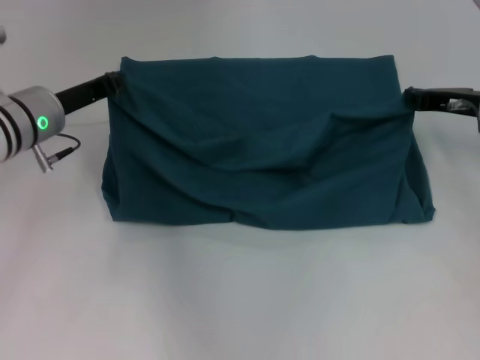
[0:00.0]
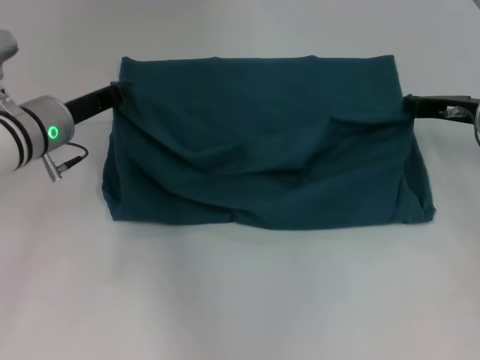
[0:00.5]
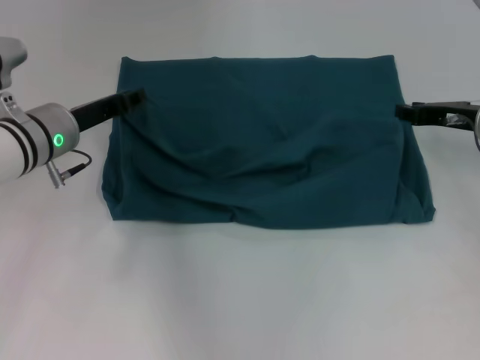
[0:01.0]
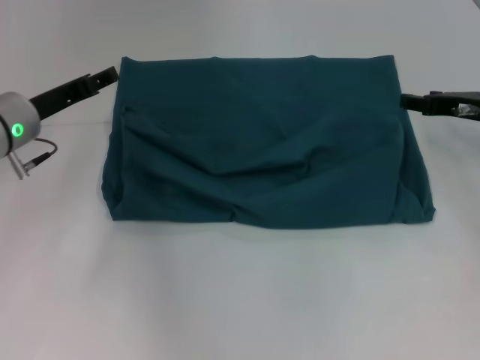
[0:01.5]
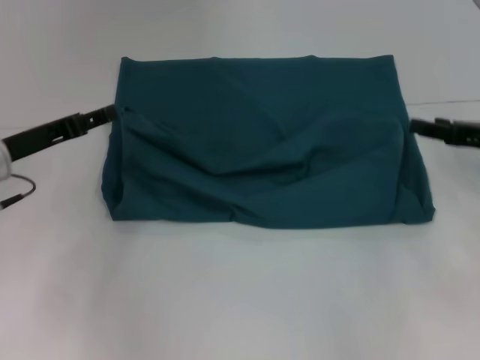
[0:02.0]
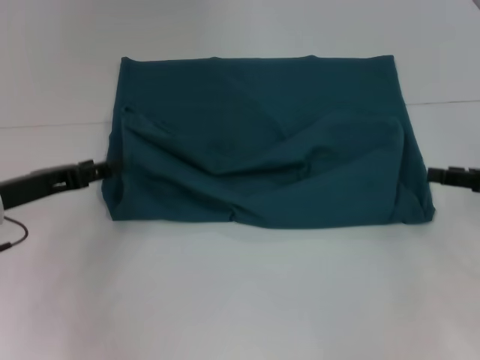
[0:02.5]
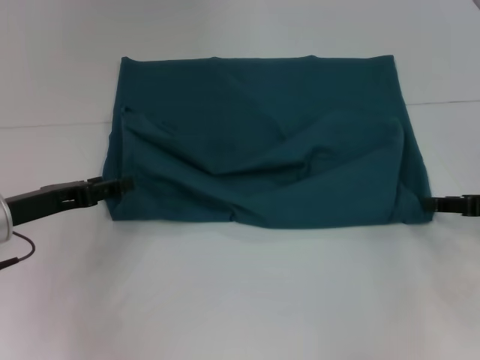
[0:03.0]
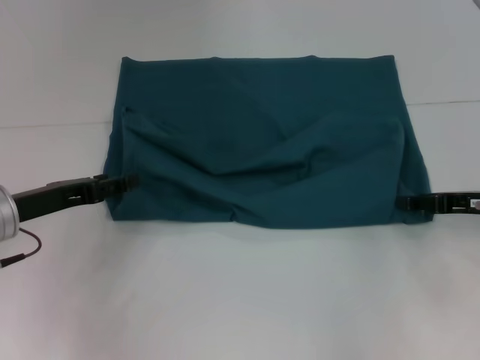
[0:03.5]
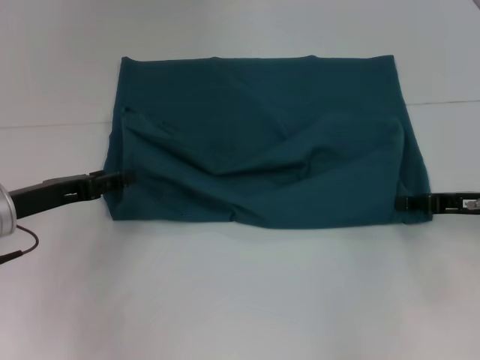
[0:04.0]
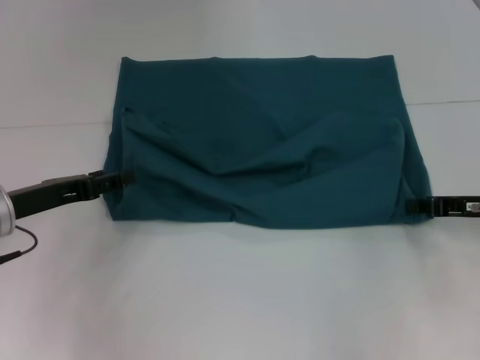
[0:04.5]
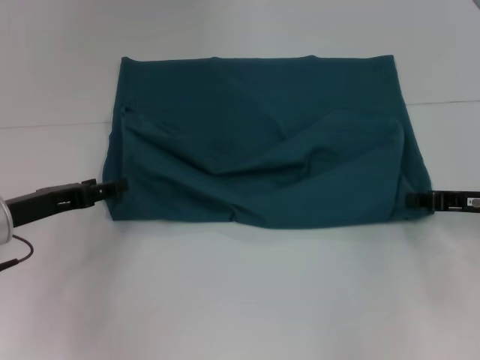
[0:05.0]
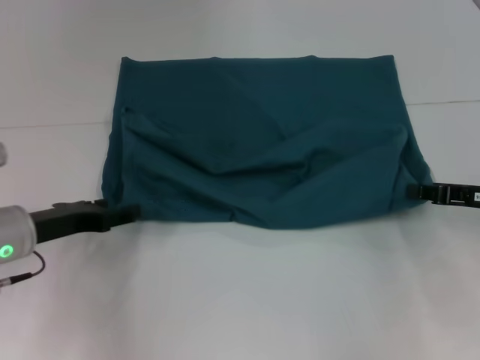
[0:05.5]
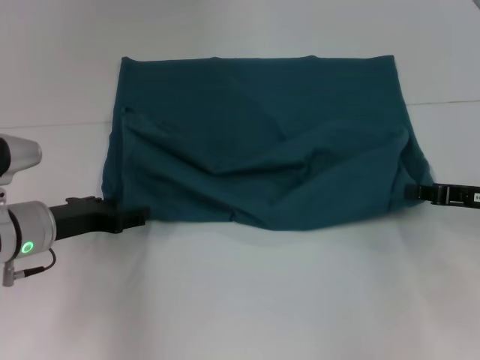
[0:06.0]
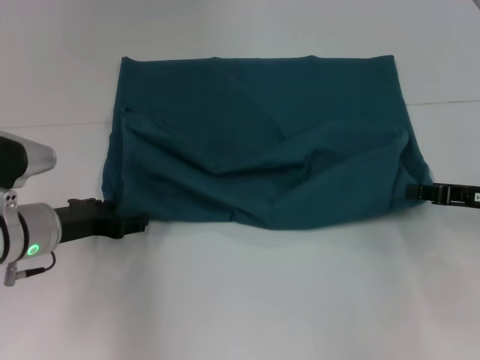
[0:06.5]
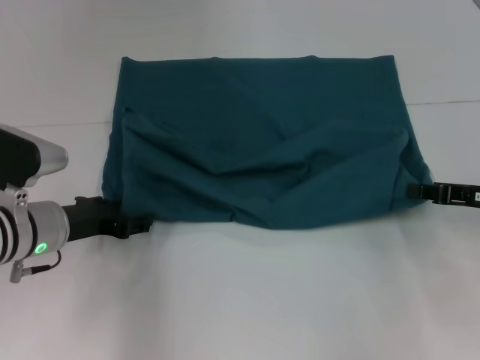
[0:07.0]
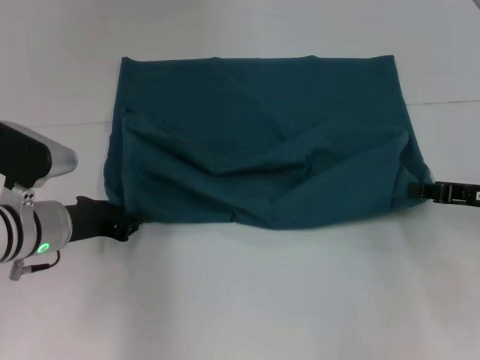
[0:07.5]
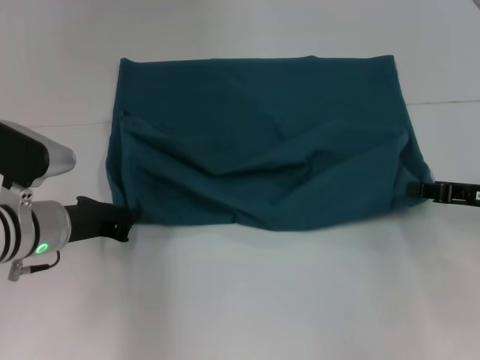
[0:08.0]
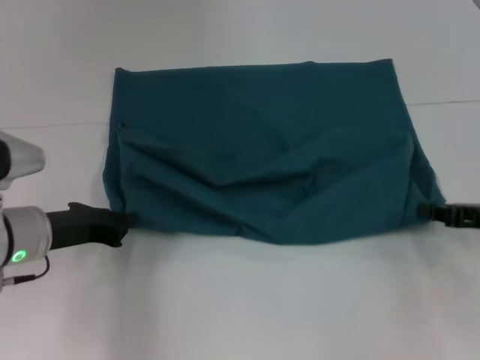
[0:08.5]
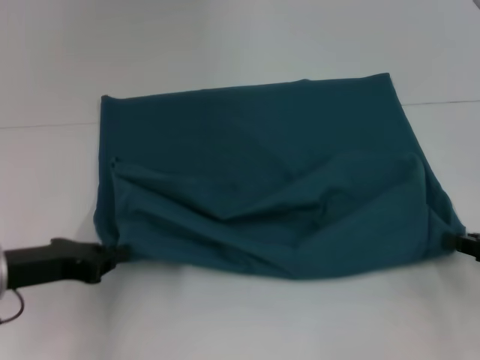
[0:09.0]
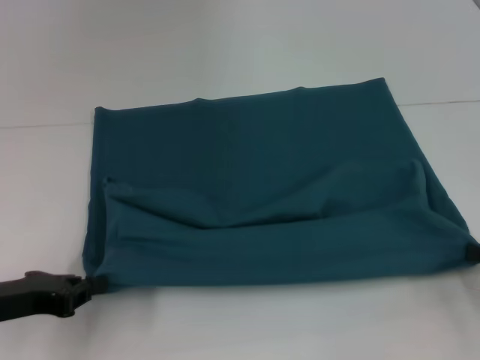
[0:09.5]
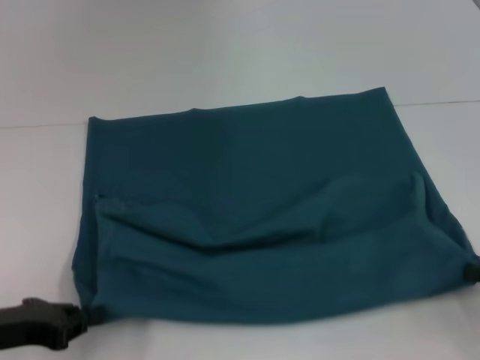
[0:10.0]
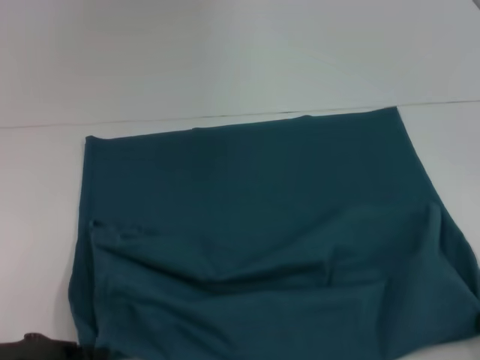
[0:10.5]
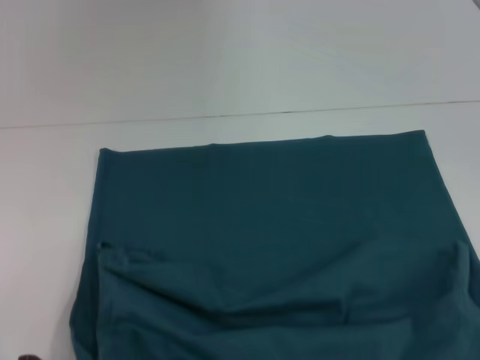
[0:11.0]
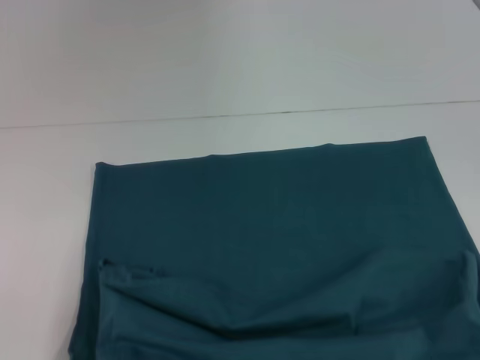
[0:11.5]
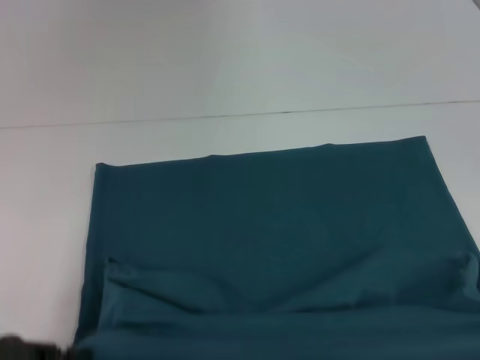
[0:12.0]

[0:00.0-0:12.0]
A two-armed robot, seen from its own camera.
Step, 0:01.5 to 0:11.0: Pull the clothes with your left hand.
Step, 0:01.5 to 0:11.0: Pull the clothes with your right hand.
0:00.0 to 0:02.0: The right gripper shifts approximately 5 cm backward, and opens. The left gripper goes roughly 5 cm to the left and backward, and opens up.
0:02.0 to 0:04.0: The grippers move only a little.
0:04.0 to 0:06.0: The right gripper closes up.
0:06.0 to 0:08.0: The left gripper closes.
0:08.0 to 0:10.0: The left gripper moves backward and to the left, about 15 cm, while the right gripper moves backward, approximately 10 cm.
0:10.0 to 0:12.0: The right gripper travels backward by roughly 15 cm. Meanwhile the left gripper moves about 5 cm.

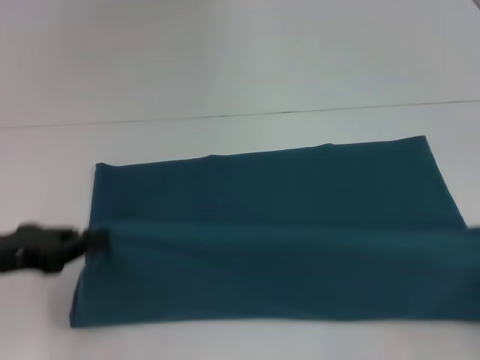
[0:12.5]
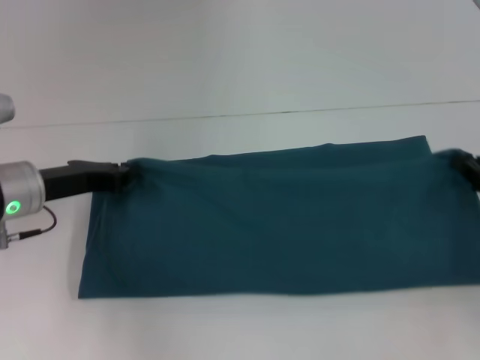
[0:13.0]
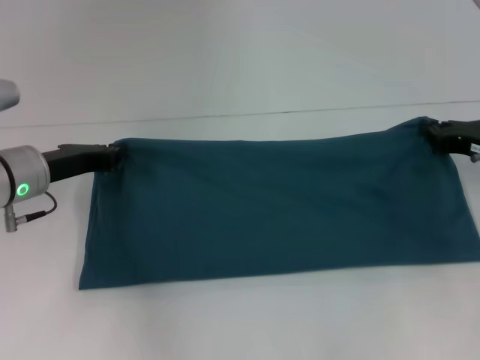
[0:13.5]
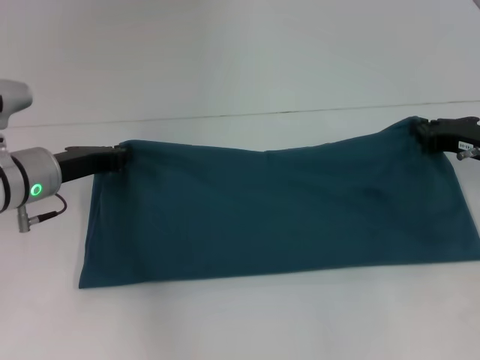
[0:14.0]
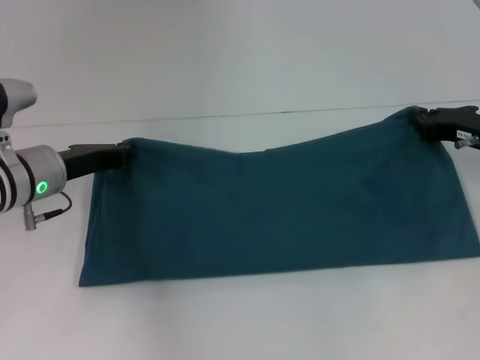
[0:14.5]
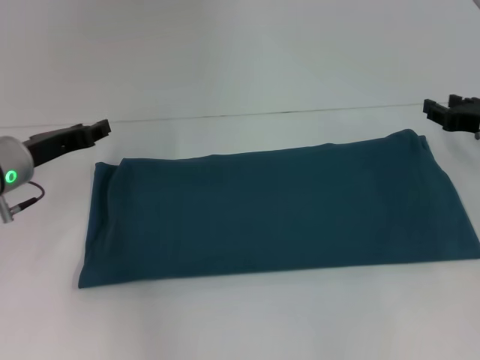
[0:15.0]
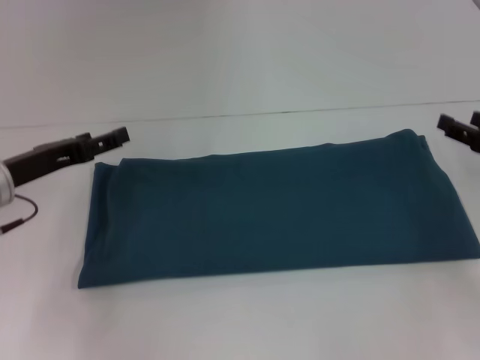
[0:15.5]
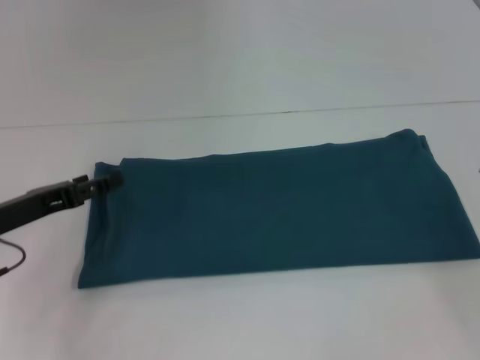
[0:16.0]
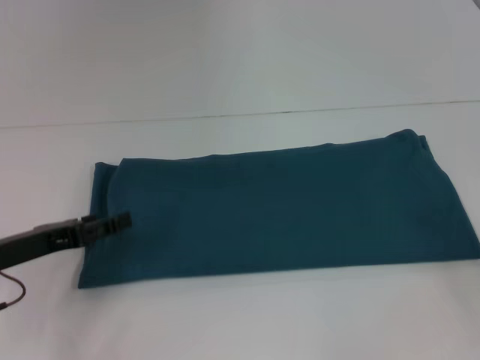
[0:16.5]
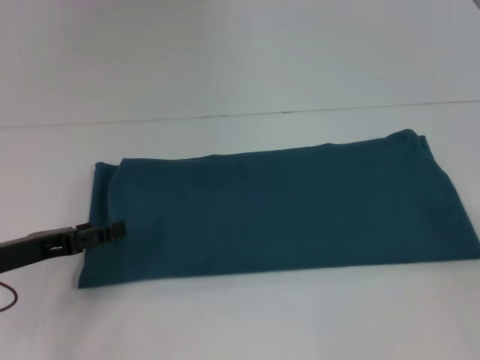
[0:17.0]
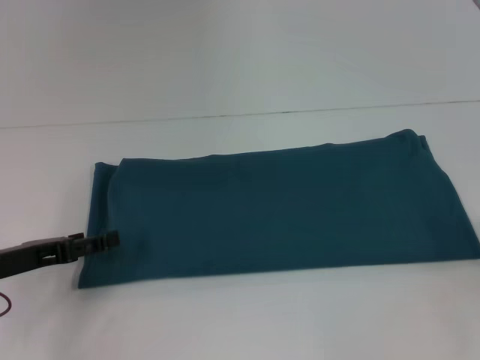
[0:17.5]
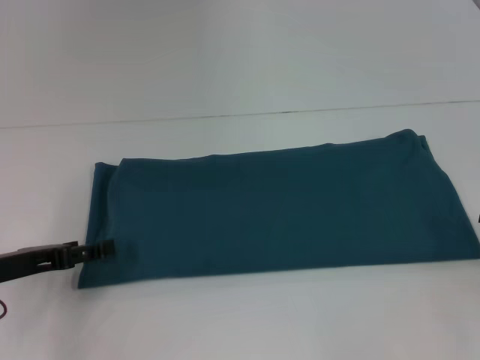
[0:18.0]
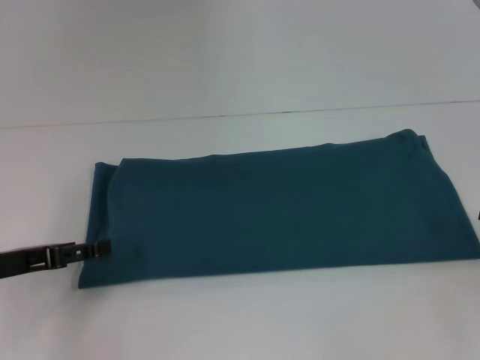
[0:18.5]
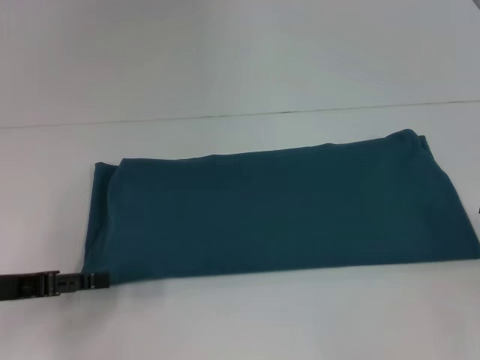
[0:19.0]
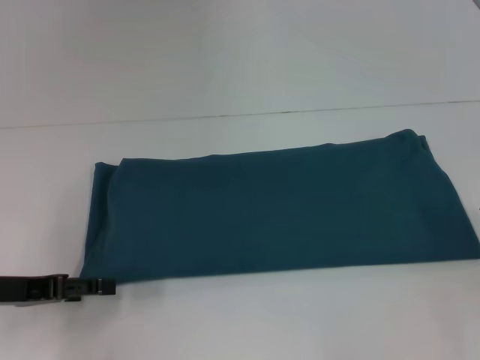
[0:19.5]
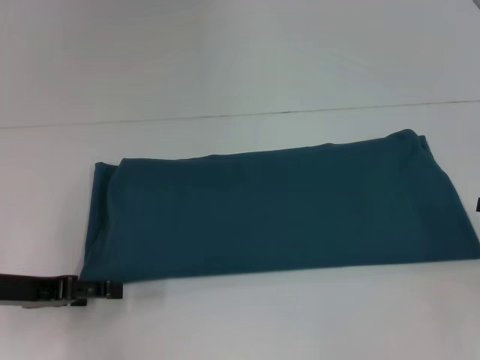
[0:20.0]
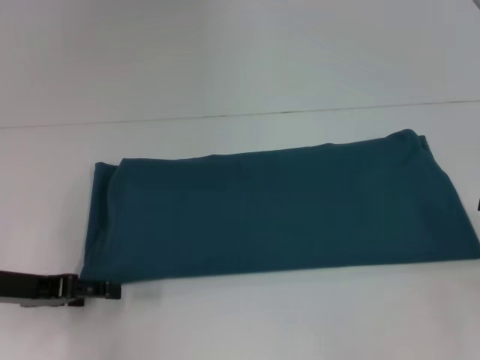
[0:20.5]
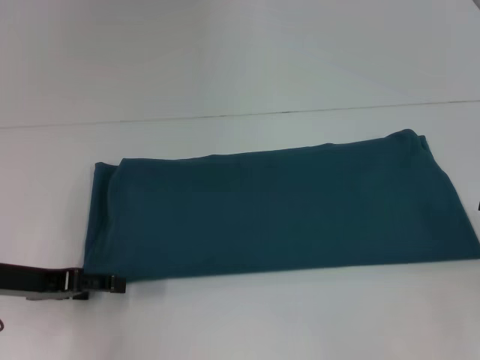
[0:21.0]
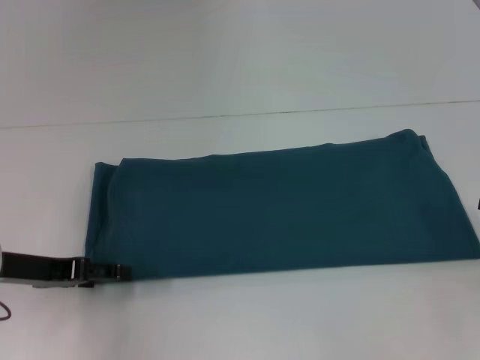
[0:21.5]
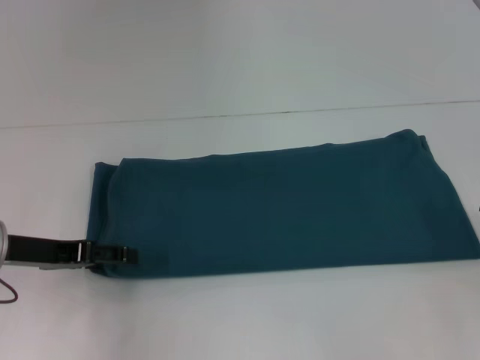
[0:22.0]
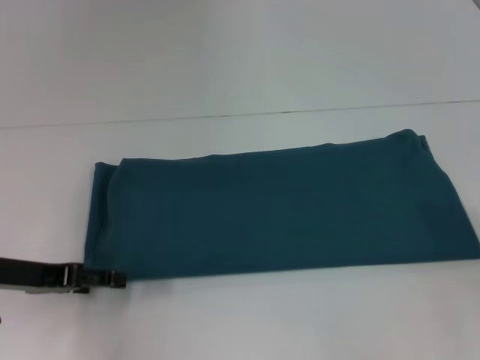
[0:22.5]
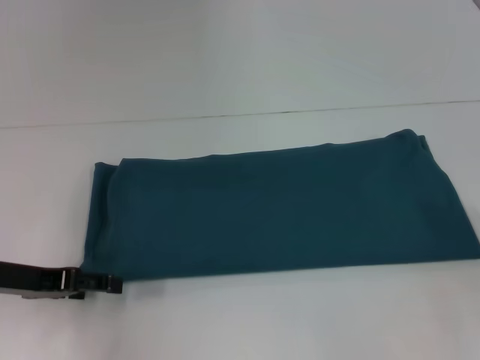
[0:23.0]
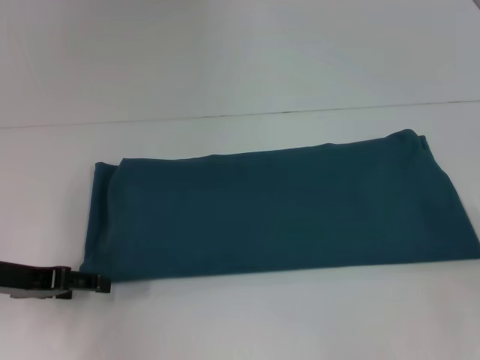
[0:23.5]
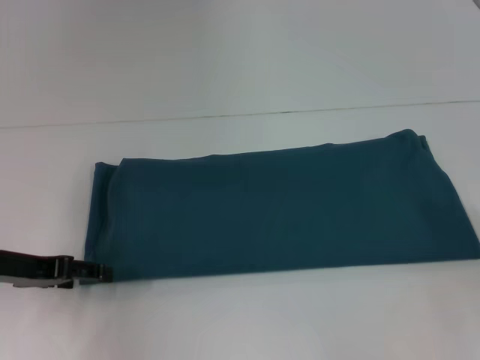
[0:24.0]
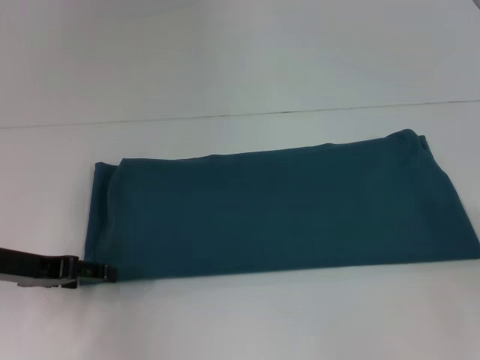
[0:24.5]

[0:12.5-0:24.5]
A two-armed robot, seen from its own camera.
Step, 0:12.5 to 0:14.5: Fold the clothes to the right.
0:12.5 to 0:14.5: The right gripper heads forward and to the left, covering approximately 20 cm. Meanwhile the left gripper moves forward and to the right, some 15 cm.
0:14.5 to 0:16.5: The right gripper shifts approximately 20 cm backward and to the right, and opens up. Meanwhile the left gripper travels backward and to the left by some 10 cm, and opens its fingers.
0:16.5 to 0:18.5: There are only small adjustments of the grippers.
0:18.5 to 0:22.5: The grippers stay close to where they were, moving slightly.
0:22.5 to 0:24.5: The grippers make only small movements.

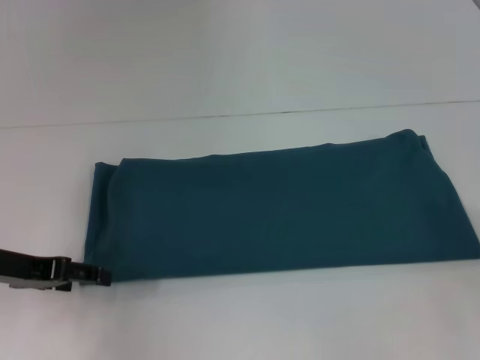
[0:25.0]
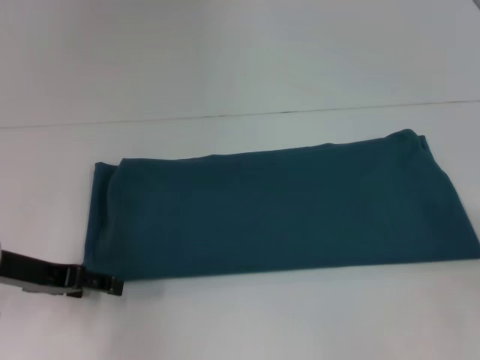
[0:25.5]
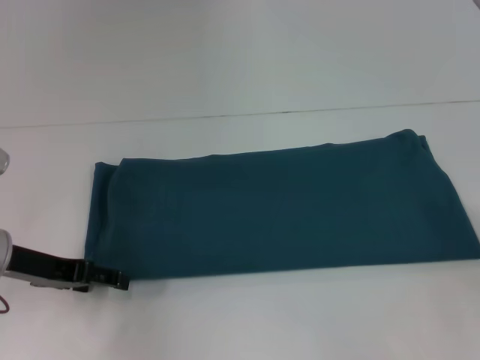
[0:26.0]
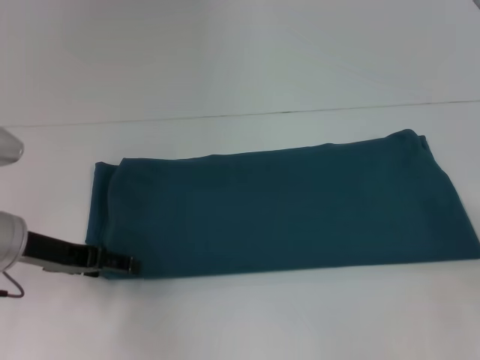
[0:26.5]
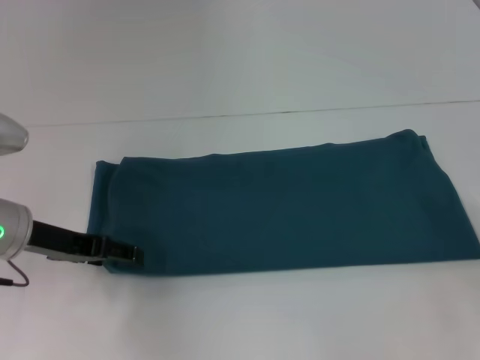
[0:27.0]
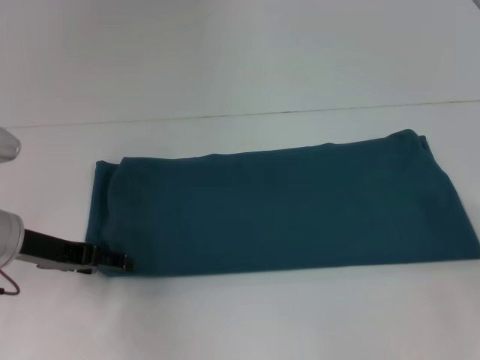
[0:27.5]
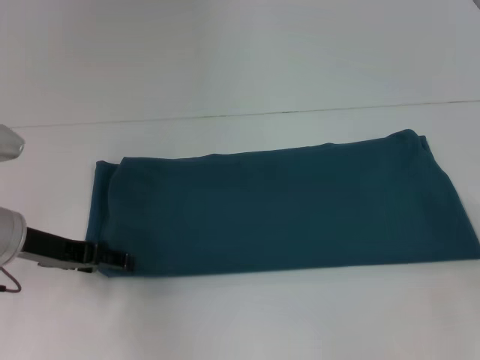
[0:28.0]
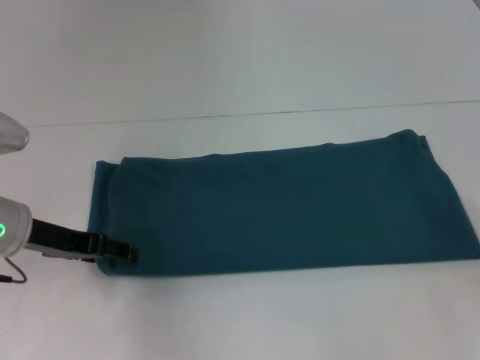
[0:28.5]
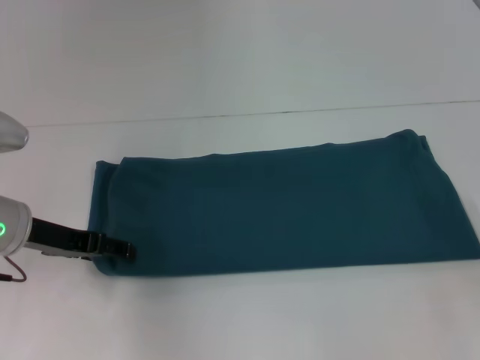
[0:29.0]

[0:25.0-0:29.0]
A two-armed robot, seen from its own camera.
0:25.0 to 0:27.0: The left gripper ends up about 5 cm from where it was.
0:27.0 to 0:29.0: Neither gripper changes place.
